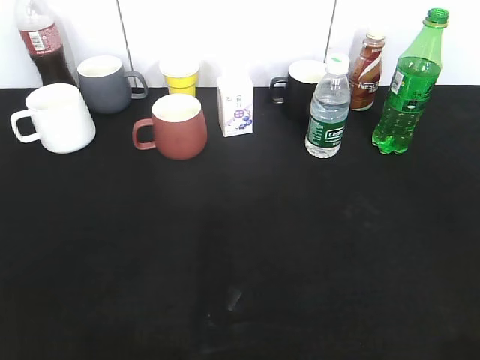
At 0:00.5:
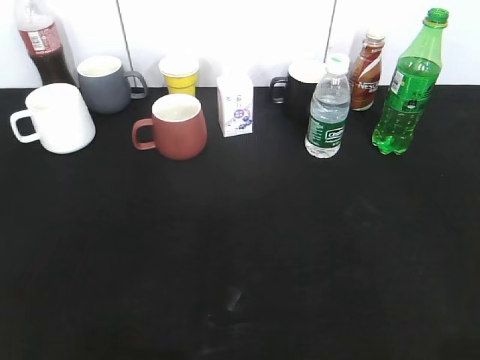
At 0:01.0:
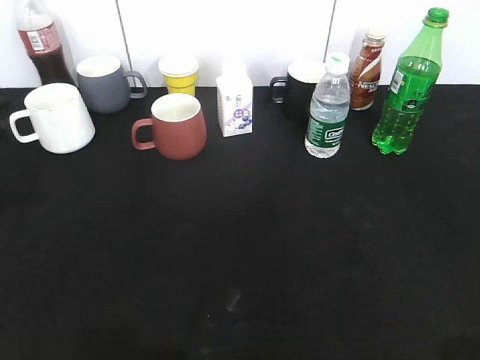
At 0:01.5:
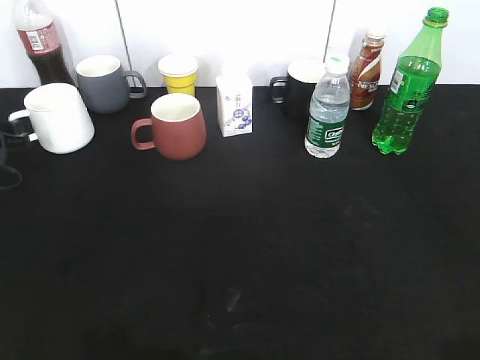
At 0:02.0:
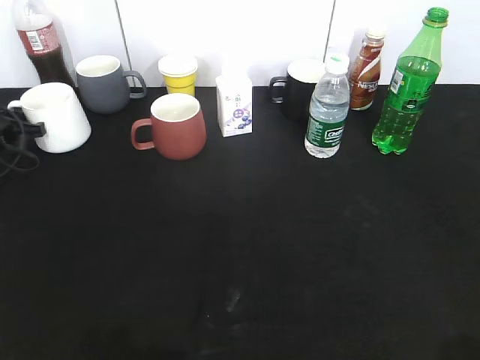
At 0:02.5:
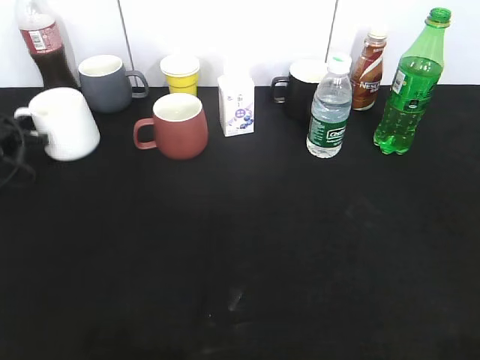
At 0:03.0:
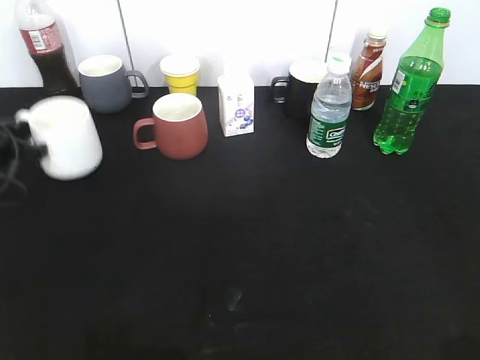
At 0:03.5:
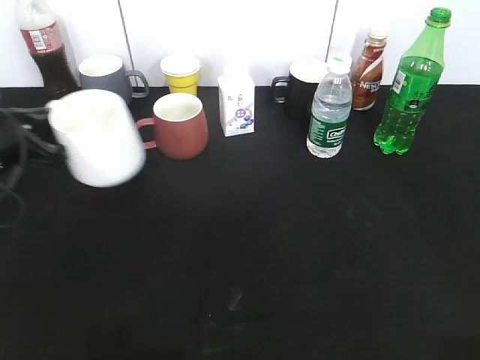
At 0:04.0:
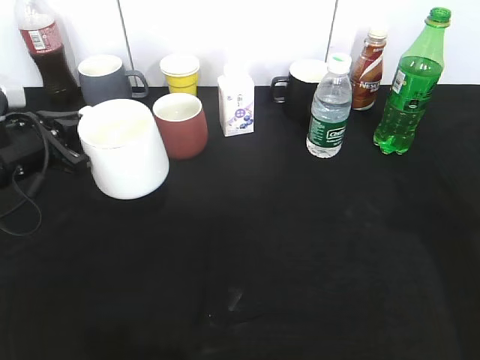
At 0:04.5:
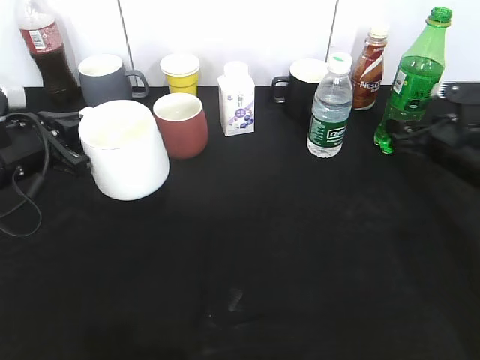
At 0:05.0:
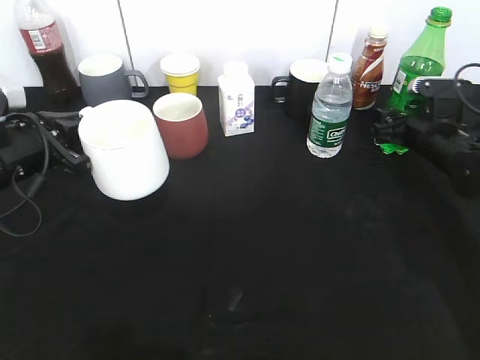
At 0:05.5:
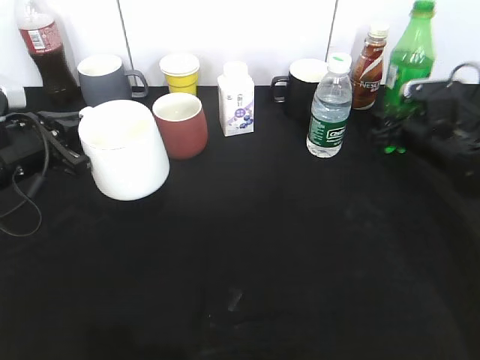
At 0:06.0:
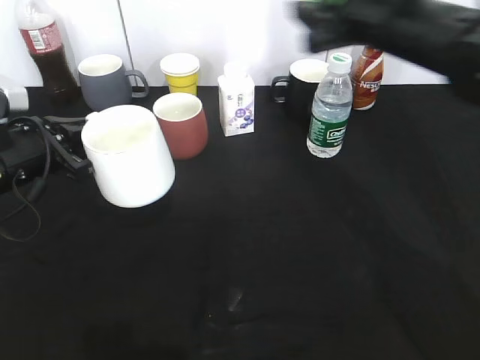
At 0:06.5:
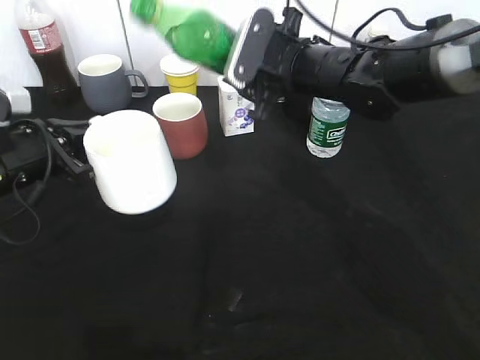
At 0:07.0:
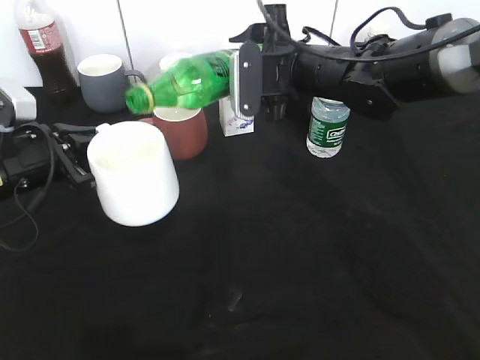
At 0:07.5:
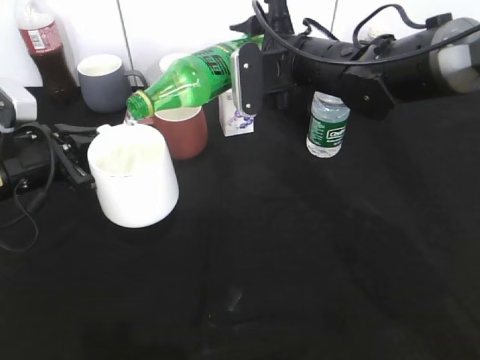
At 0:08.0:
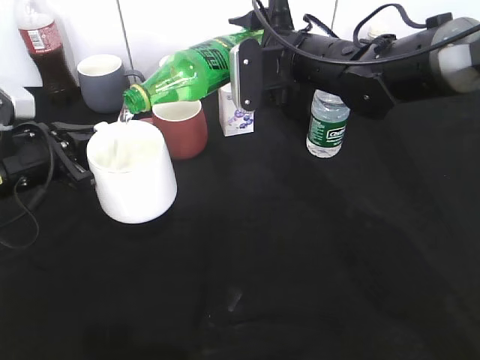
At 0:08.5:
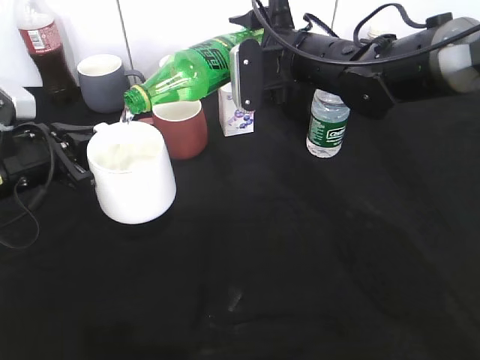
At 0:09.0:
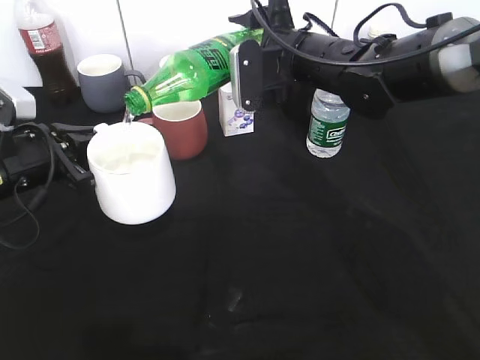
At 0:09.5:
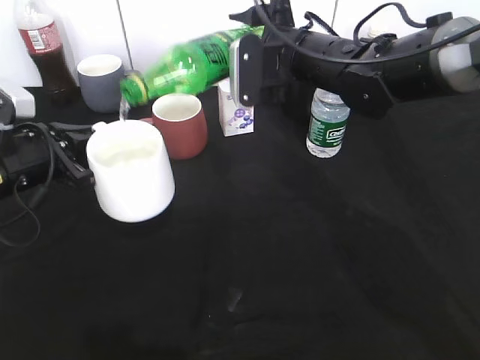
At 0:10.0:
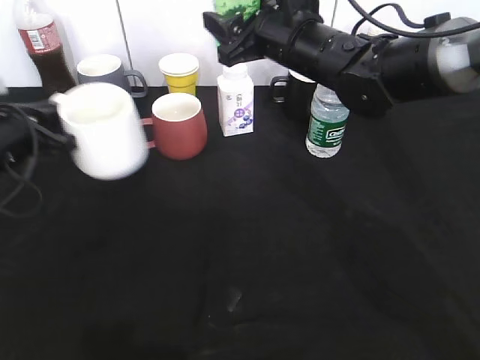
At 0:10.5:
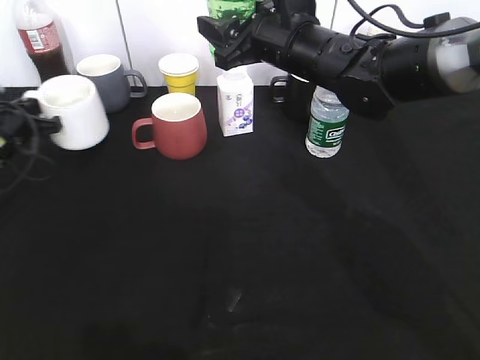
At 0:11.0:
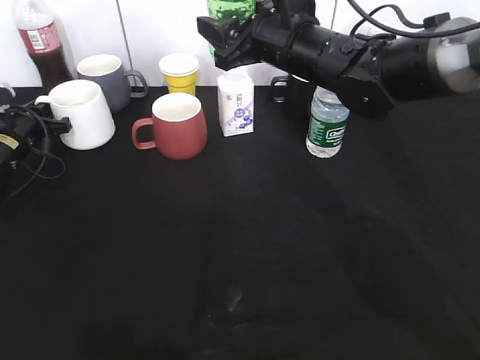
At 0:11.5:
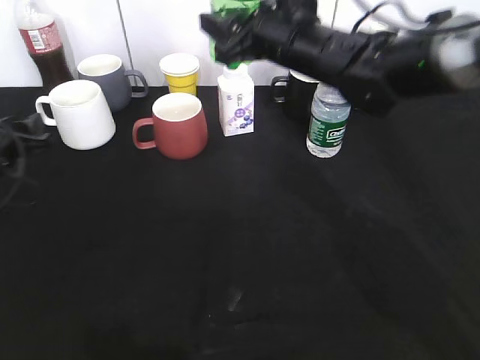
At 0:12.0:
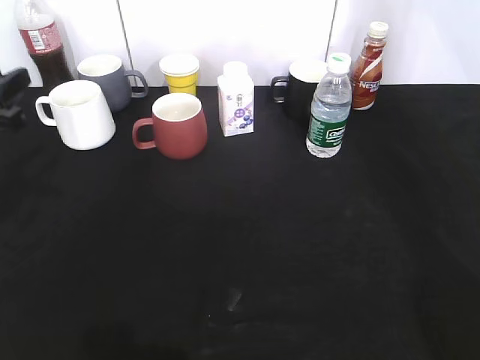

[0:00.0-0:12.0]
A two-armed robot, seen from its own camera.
Step, 0:00.0 to 0:01.5: Grasp the white cup with left gripper.
Step, 0:02.0 to 0:03.5: Lift the white cup with left gripper.
Step, 0:04.5 to 0:05.0: Grasp the bottle with sprite with right gripper.
Step, 0:05.5 to 0:09.5: Pour the sprite from bottle to cup with right gripper.
Step, 0:10.0 to 0:11.0: Place the white cup on the table with left gripper.
0:00.0 to 0:02.0: The left gripper heads forward and downward, covering some 50 cm, and closes its fingers.
0:02.0 to 0:04.0: The left gripper moves backward, to the right and upward, about 20 cm, and closes its fingers. Meanwhile the right gripper heads forward, covering approximately 20 cm.
0:04.0 to 0:06.0: The right gripper heads to the left and forward, covering about 25 cm, and opens and closes again.
0:06.0 to 0:08.0: The right gripper shifts some 10 cm to the left and downward.
0:10.0 to 0:12.0: The right gripper goes approximately 20 cm to the right and upward. The left gripper reaches approximately 10 cm forward, then returns, and opens its fingers.

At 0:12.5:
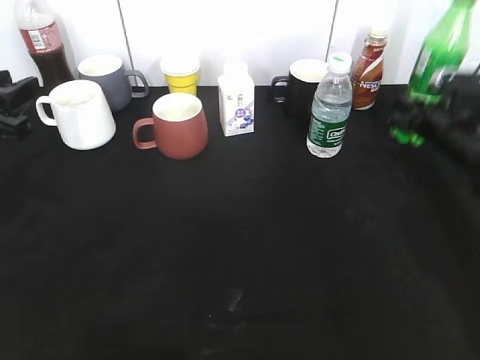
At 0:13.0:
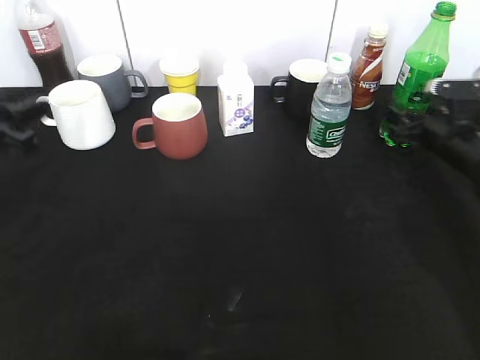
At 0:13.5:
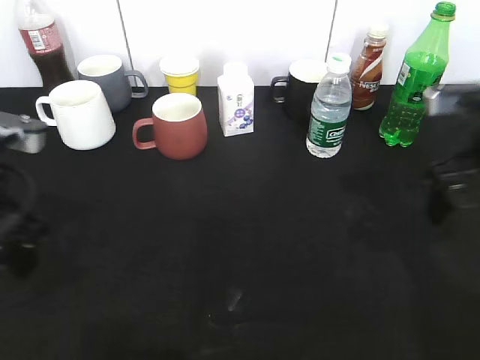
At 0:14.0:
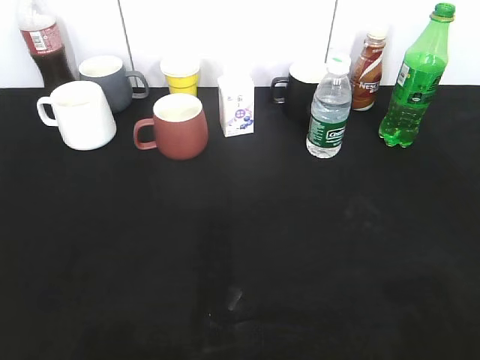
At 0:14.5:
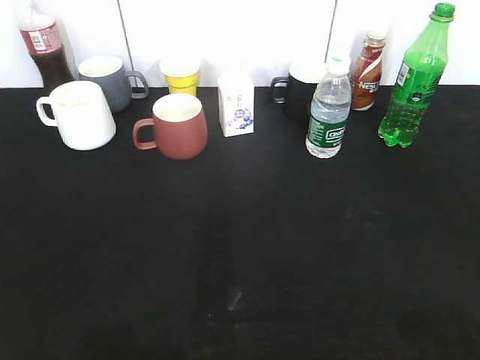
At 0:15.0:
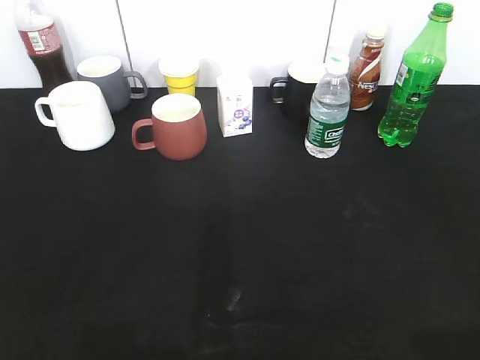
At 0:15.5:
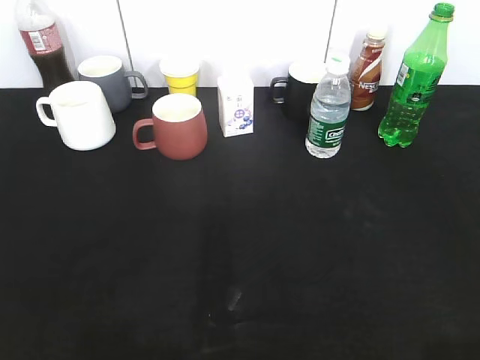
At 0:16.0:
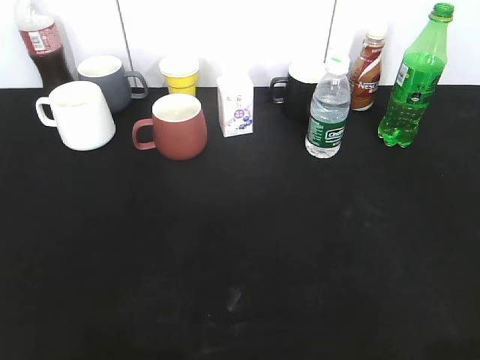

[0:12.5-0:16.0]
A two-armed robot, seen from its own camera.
0:12.5 to 0:14.5: The right gripper travels backward and upward by roughly 40 cm, and opens its fingers. The left gripper heads backward, covering approximately 25 cm.
0:14.5 to 0:16.0: The left gripper closes.

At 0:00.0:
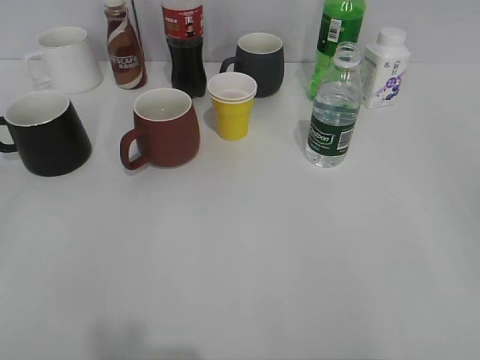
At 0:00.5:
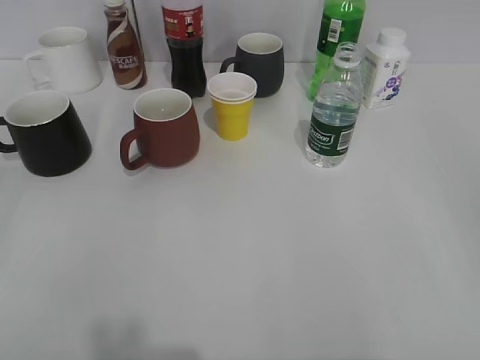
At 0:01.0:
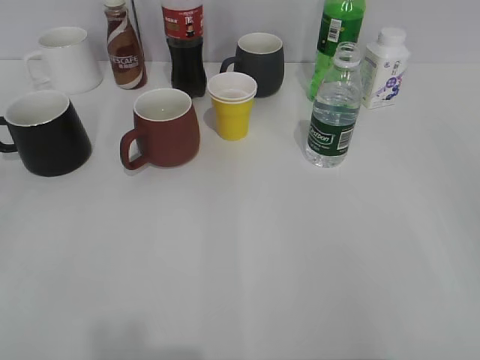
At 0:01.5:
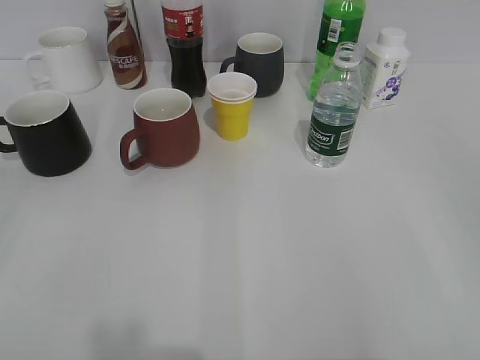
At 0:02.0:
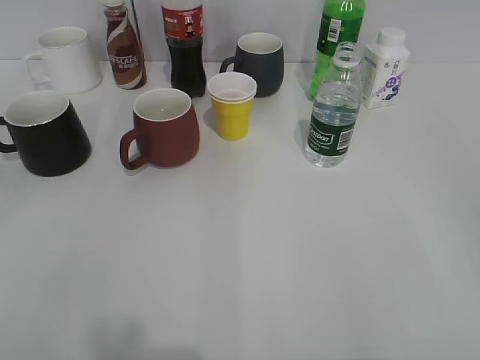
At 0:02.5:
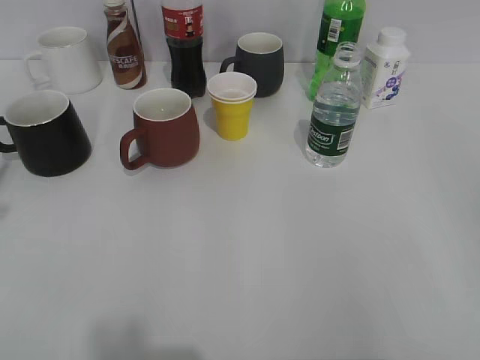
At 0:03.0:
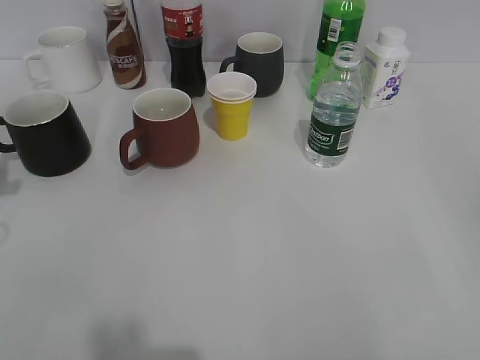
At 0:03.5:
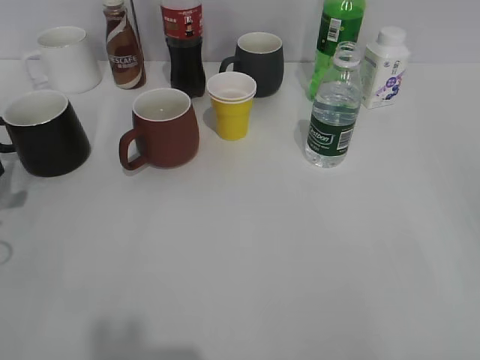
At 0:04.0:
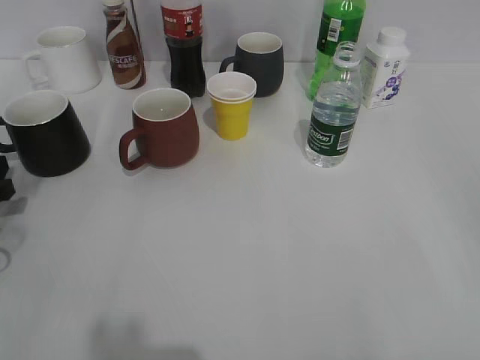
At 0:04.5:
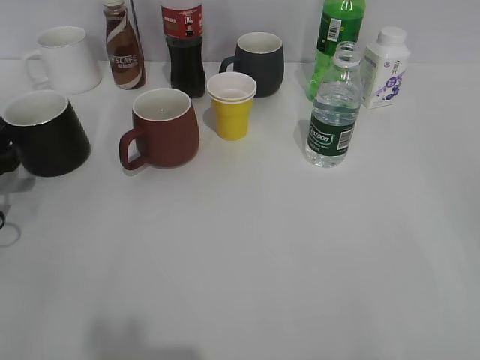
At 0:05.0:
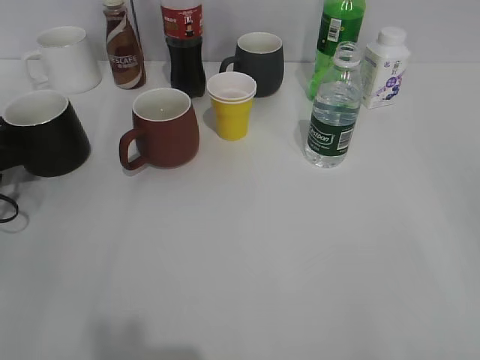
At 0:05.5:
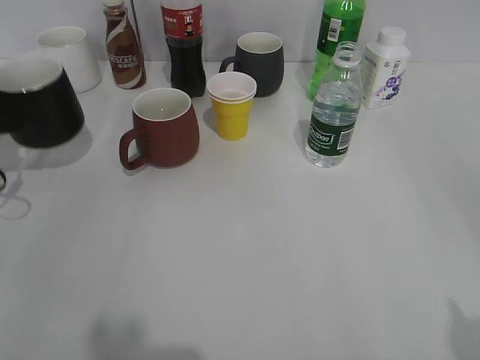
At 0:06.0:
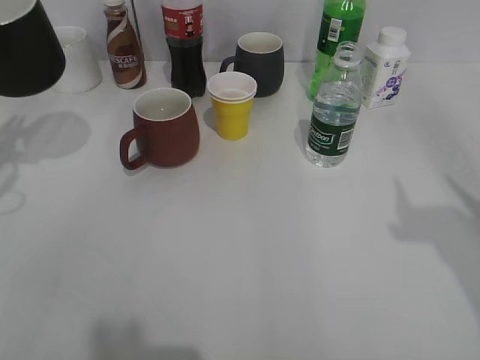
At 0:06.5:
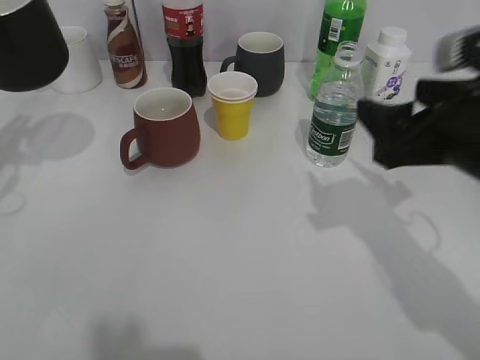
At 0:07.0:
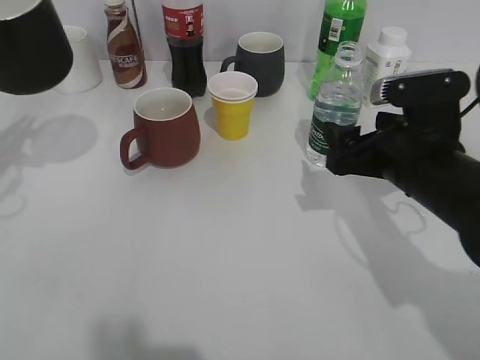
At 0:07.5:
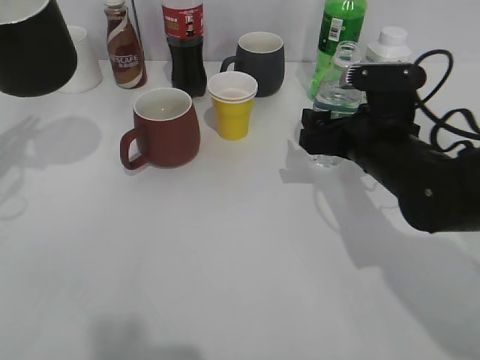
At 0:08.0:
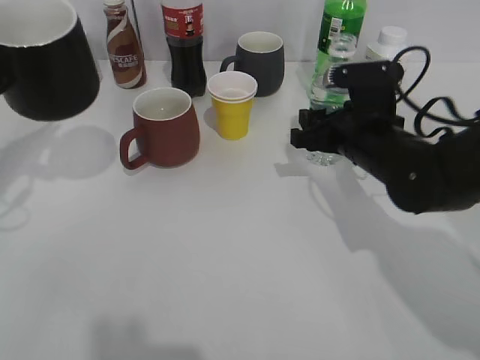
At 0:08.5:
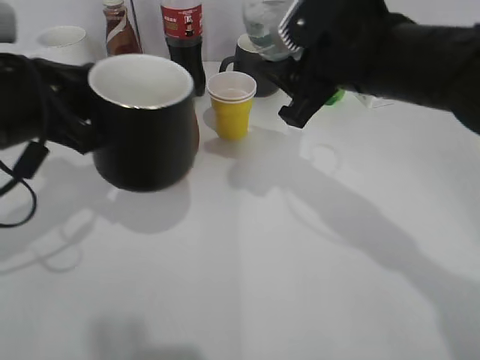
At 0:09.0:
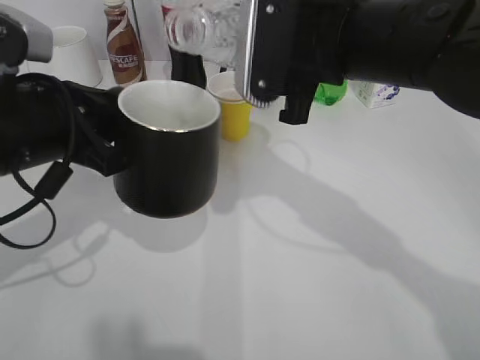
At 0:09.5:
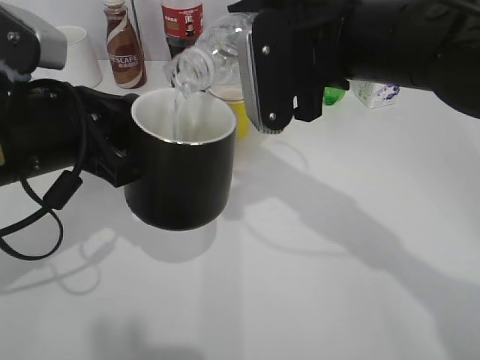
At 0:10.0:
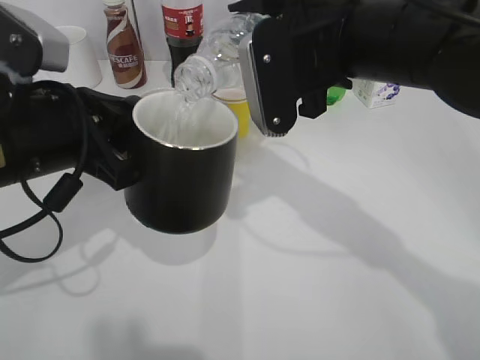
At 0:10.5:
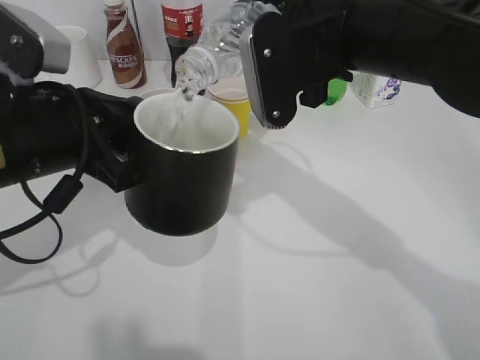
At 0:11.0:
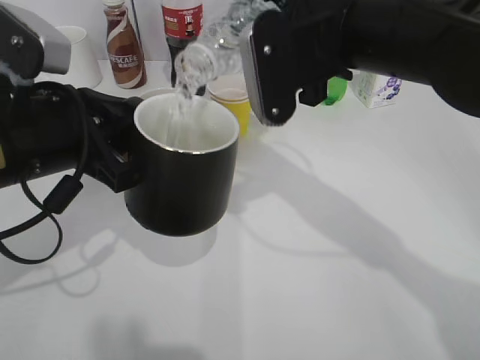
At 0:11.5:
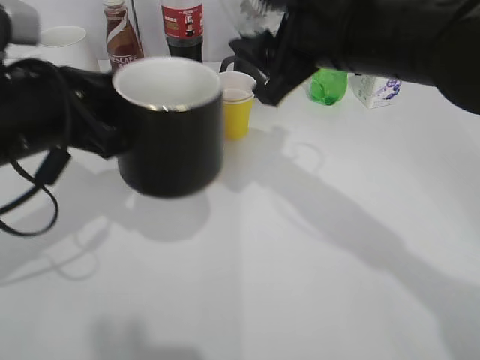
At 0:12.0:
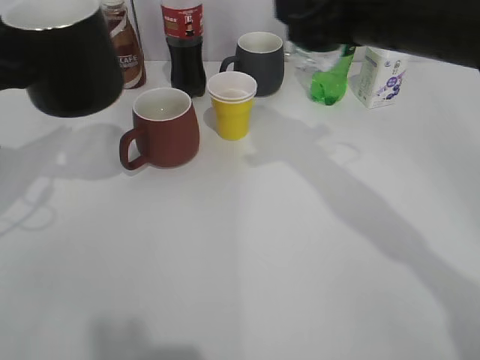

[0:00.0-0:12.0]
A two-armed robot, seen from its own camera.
Step, 0:05.5 to 0:06.0: Lift the black cup with left gripper.
Step, 0:06.5 to 0:07.5: Grasp the bottle with water with right gripper.
Step, 0:08.0 to 0:11.0: Pour the water from bottle to cup with right gripper.
0:02.0 to 0:04.0: The left gripper is displaced forward and downward by approximately 30 cm.
0:04.0 to 0:06.0: The left gripper is displaced upward by about 15 cm, and closes up.
0:06.0 to 0:08.0: The right gripper travels downward, forward and to the left by some 30 cm, and closes.
0:08.0 to 0:10.0: The left gripper moves to the right and backward, about 15 cm. Meanwhile the right gripper travels upward and to the left by some 15 cm.
0:10.0 to 0:12.0: The left gripper travels to the left by some 10 cm, while the right gripper ends up some 5 cm from where it was.
